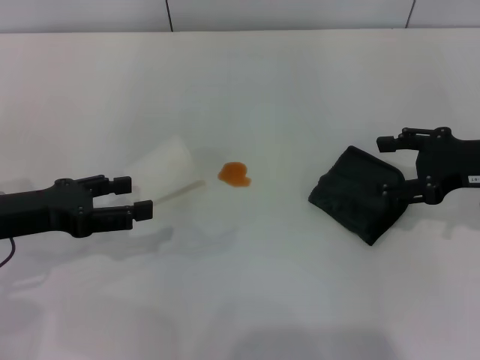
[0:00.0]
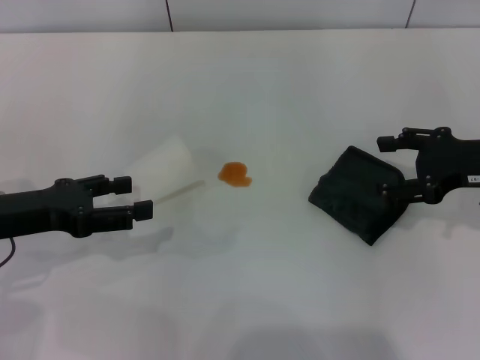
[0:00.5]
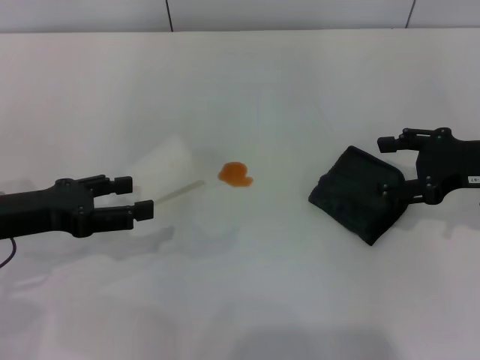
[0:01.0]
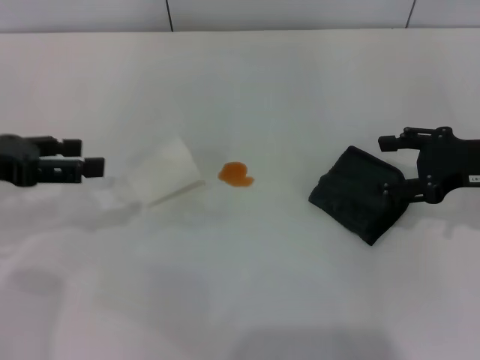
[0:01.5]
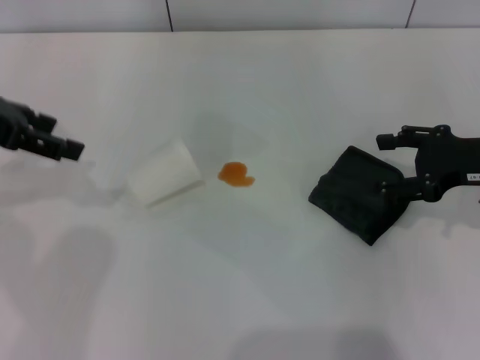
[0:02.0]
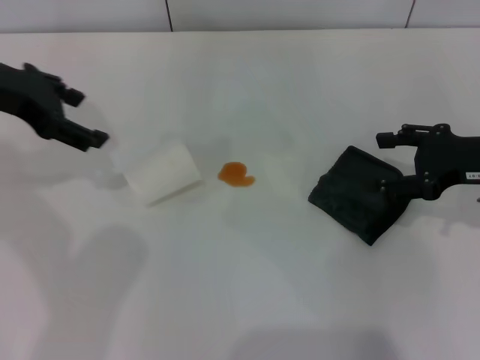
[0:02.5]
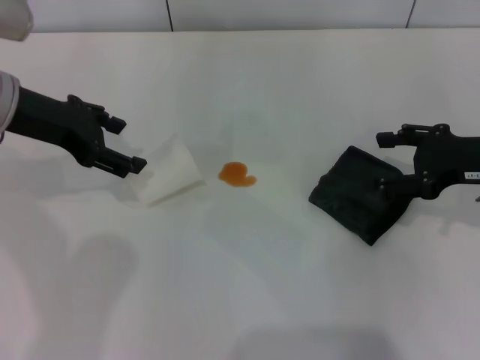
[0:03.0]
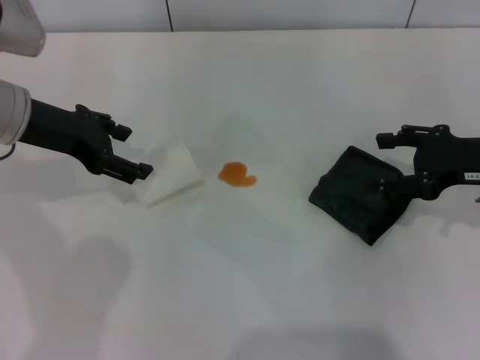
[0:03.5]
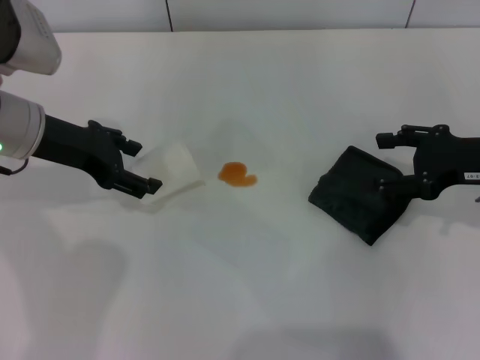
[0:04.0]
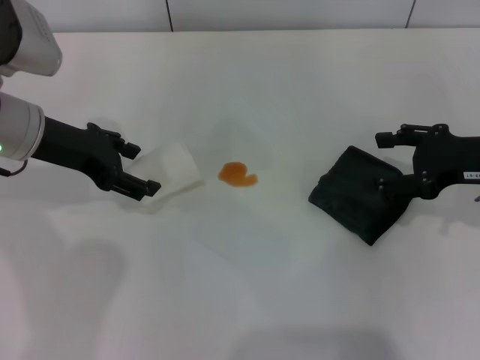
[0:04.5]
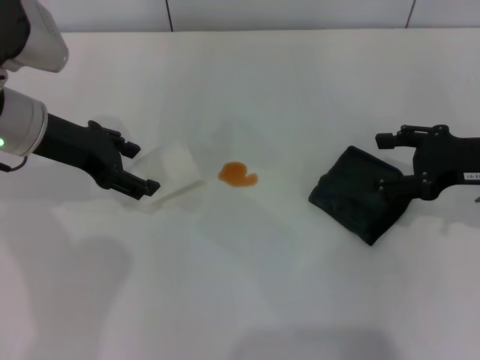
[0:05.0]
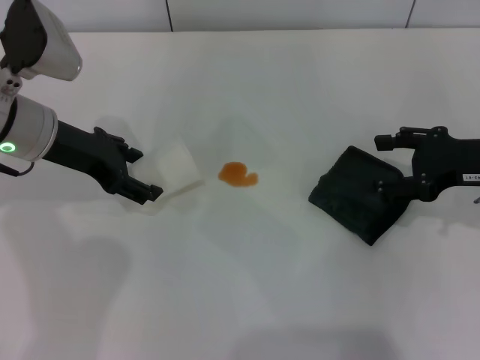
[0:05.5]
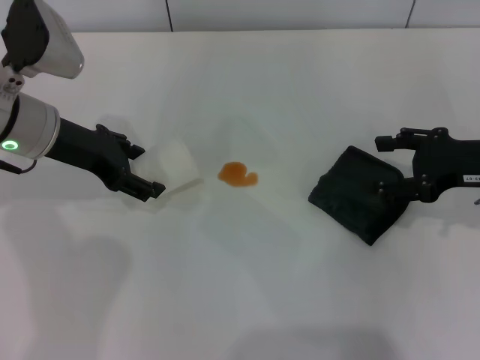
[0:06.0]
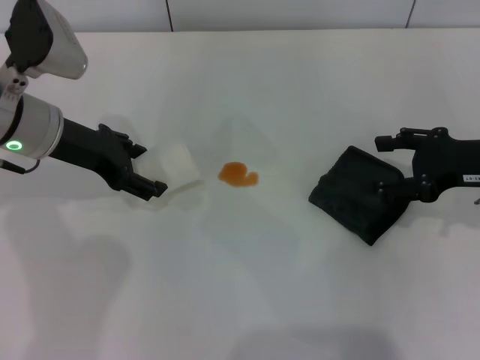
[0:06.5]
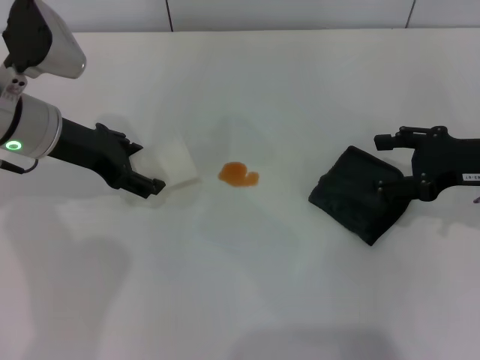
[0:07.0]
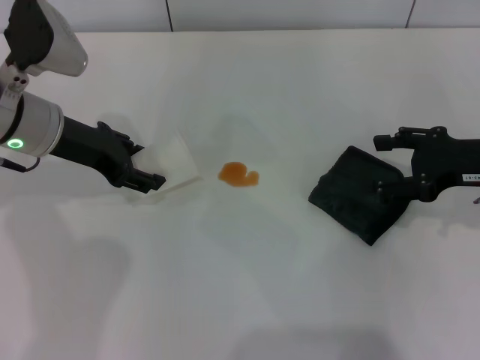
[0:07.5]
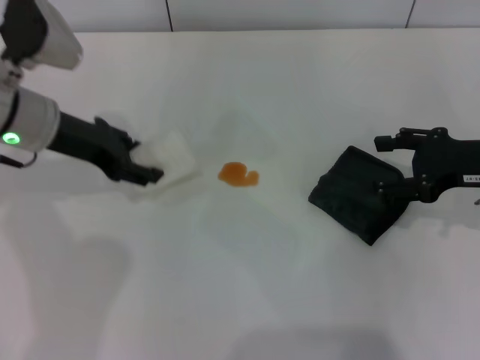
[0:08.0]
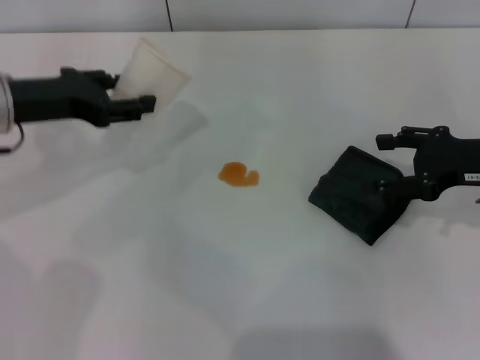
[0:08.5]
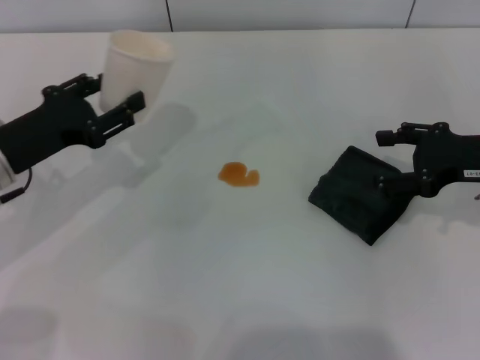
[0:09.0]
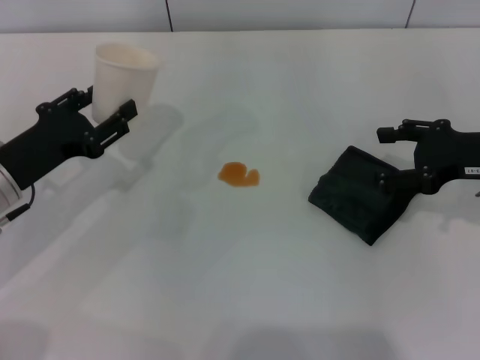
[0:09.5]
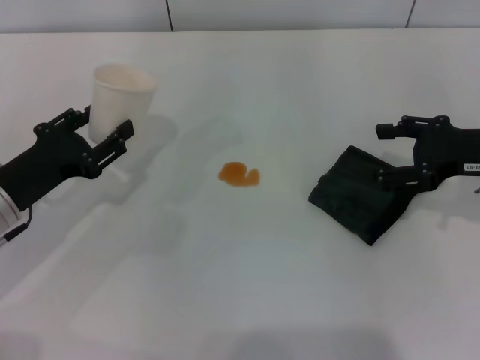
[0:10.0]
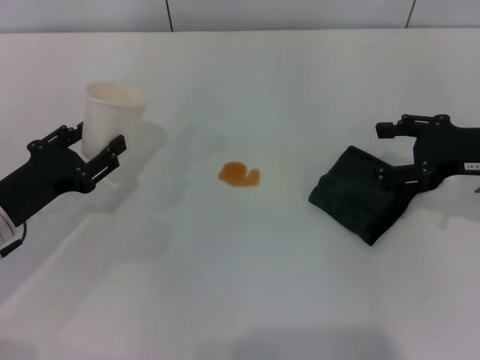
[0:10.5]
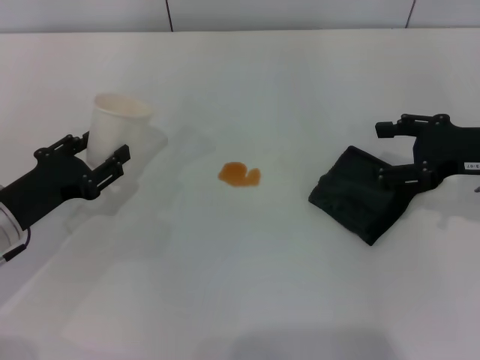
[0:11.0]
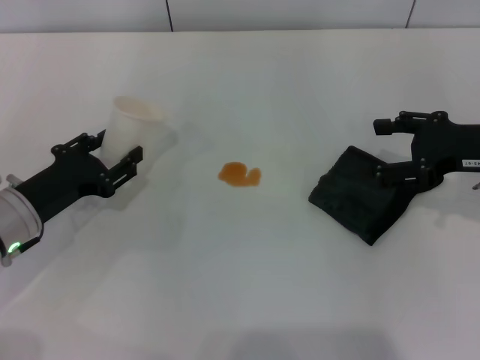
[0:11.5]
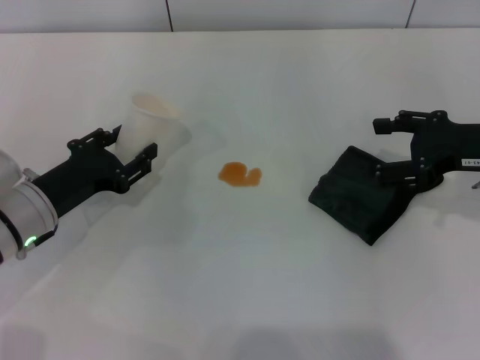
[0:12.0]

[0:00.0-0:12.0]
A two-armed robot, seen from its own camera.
Step, 0:00.0 to 0:07.5: Grasp the paper cup with the left gripper.
0:00.0 to 0:02.0: The left gripper moves upward and forward, roughly 15 cm.
0:02.0 to 0:04.0: The left gripper is displaced downward and to the right by about 10 cm.
0:04.0 to 0:06.0: The grippers stay close to where they were, moving slightly.
0:06.0 to 0:08.0: The left gripper closes.
0:08.0 to 0:10.0: The left gripper moves backward and downward, about 15 cm.
0:10.0 to 0:12.0: The grippers move only a little.

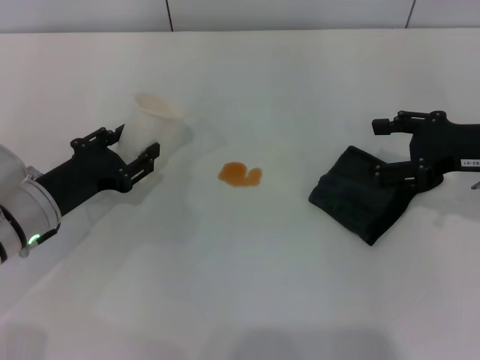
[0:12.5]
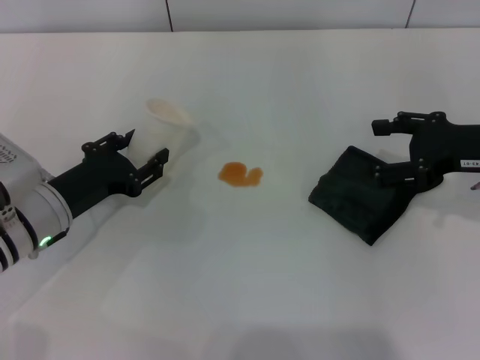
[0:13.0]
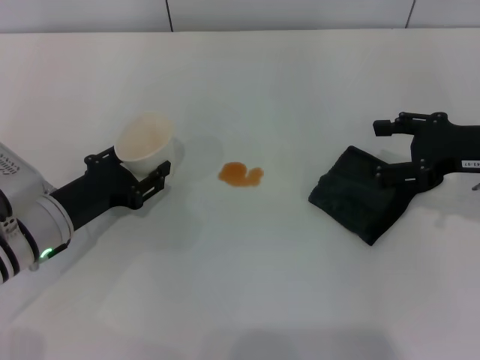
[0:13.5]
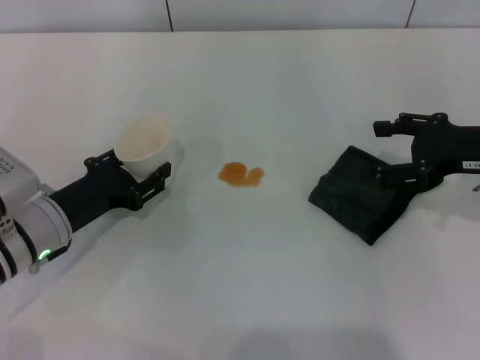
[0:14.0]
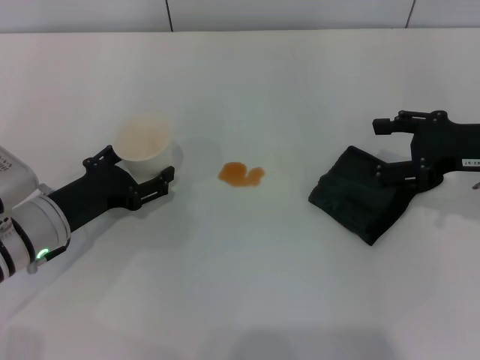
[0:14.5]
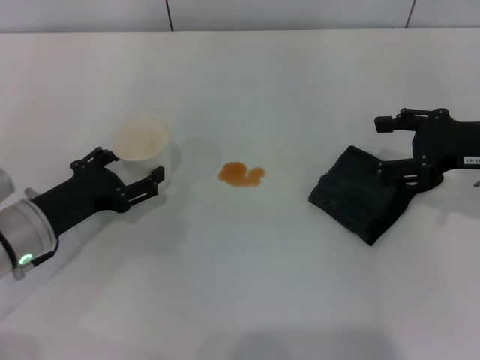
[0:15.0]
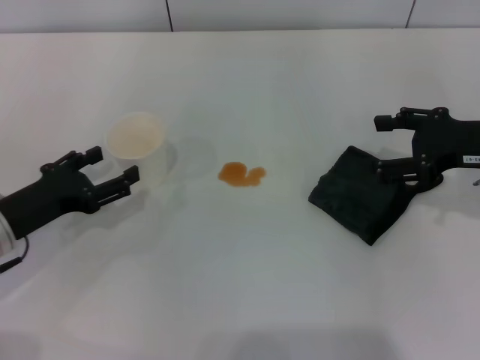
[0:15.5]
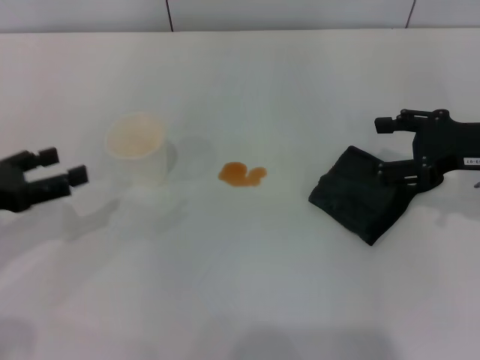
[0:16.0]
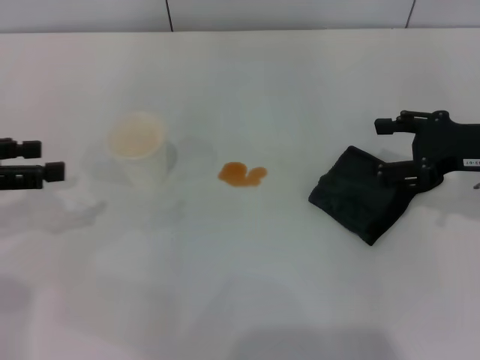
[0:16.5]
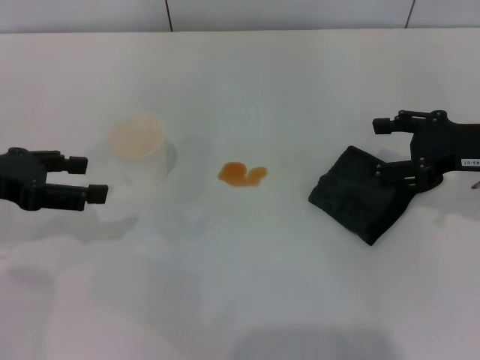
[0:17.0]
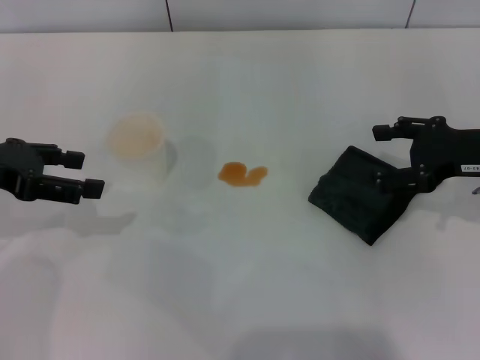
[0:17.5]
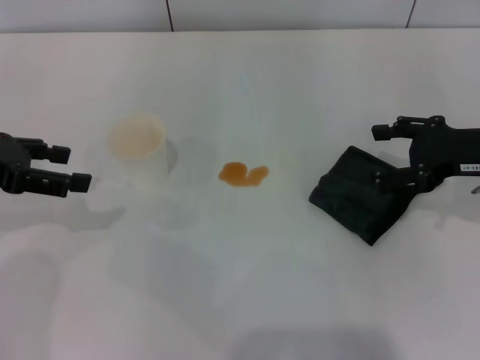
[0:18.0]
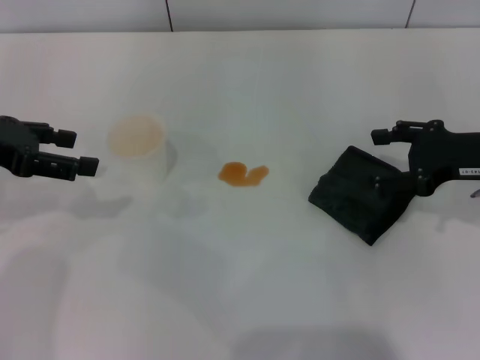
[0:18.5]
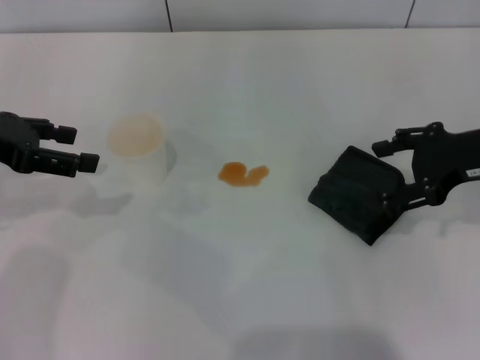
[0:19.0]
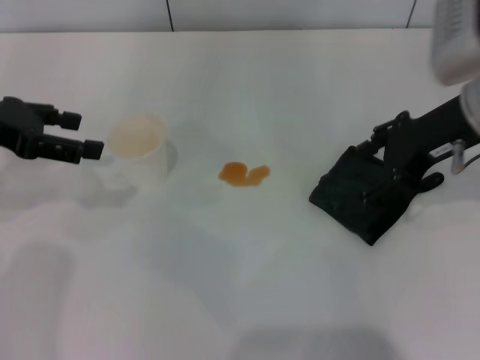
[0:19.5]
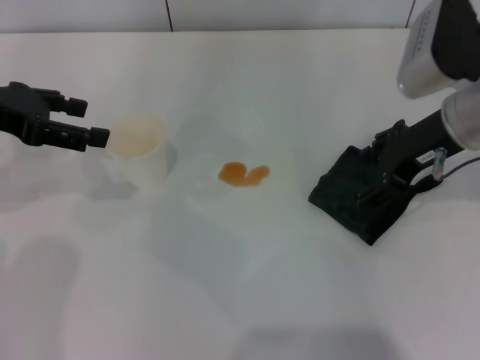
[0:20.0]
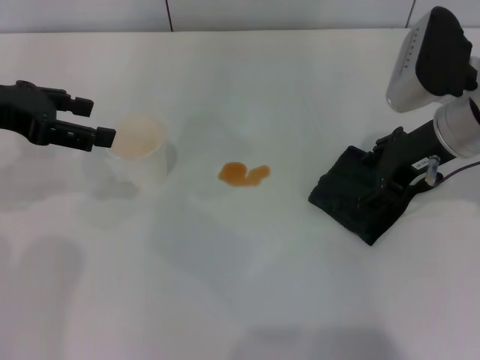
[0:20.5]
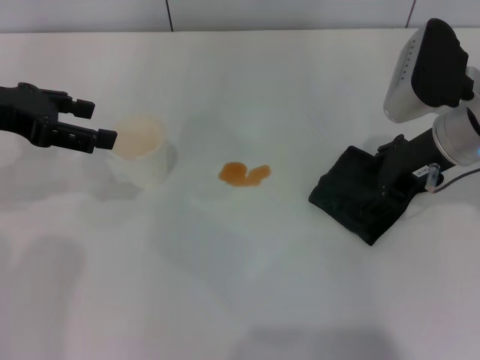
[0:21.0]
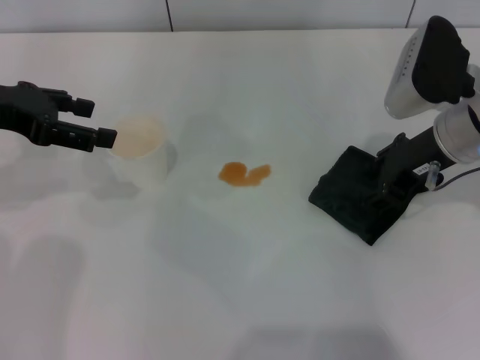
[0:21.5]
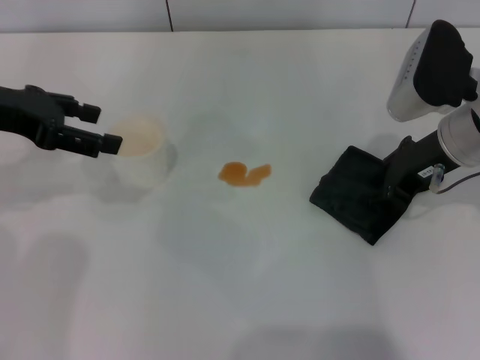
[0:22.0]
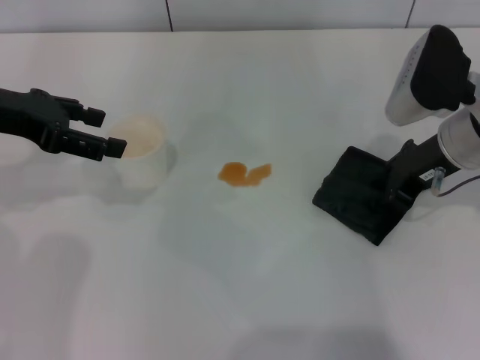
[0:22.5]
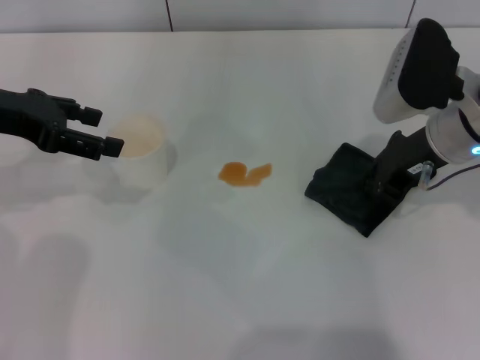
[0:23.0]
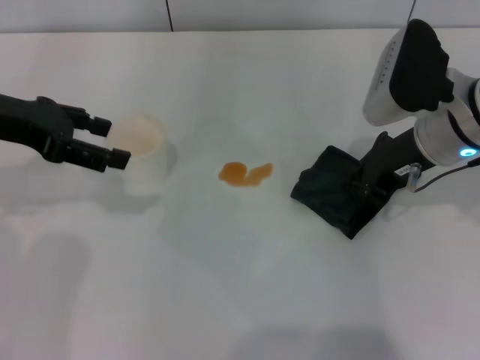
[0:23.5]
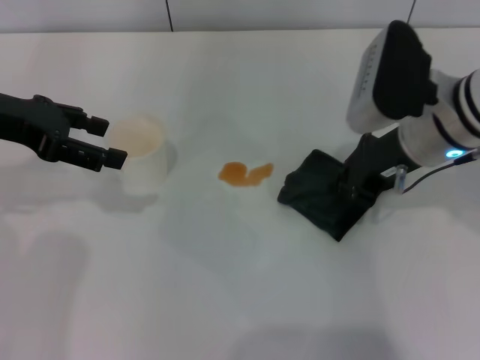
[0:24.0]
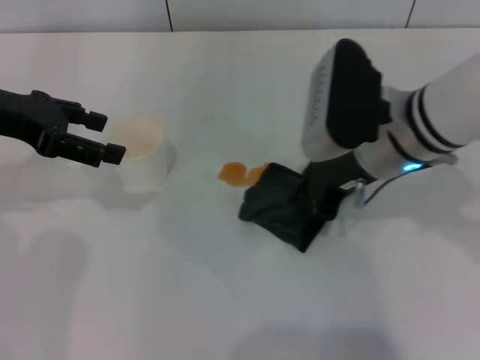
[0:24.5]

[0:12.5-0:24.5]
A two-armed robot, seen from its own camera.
Step, 0:12.5 to 0:15.5: Stand the paper cup upright with the left gripper.
Step, 0:16.0 to 0:23.0: Grasp the rag with the right gripper.
0:12.5 to 0:14.5: The left gripper opens.
0:14.5 to 0:16.5: The left gripper moves upward and to the left, approximately 20 cm, and opens up.
0:16.5 to 0:18.5: The left gripper ends up about 5 cm from where it was.
0:18.5 to 0:20.5: The right gripper travels to the left by some 10 cm.
0:20.5 to 0:22.5: The right gripper closes.
0:22.5 to 0:24.5: The right gripper is displaced to the left by approximately 10 cm, and closes its fingers.

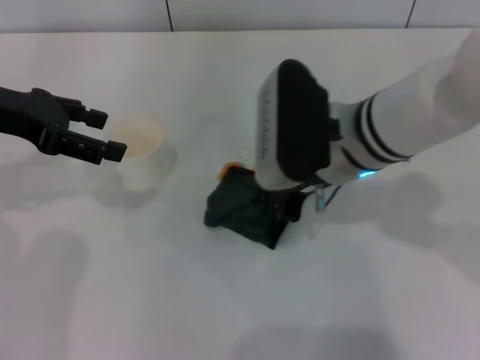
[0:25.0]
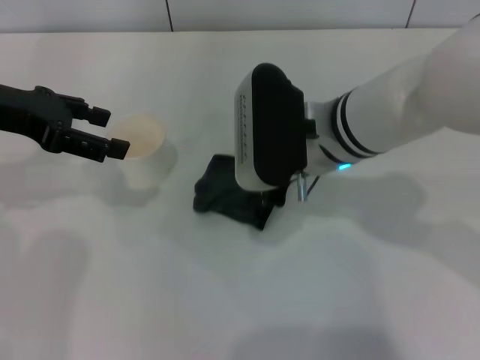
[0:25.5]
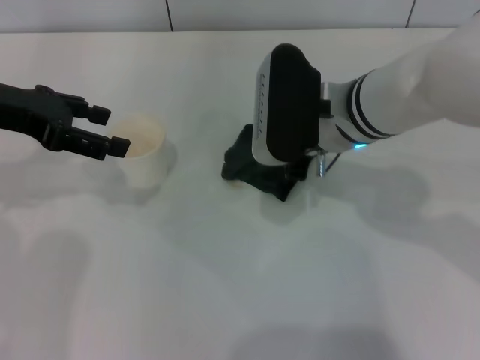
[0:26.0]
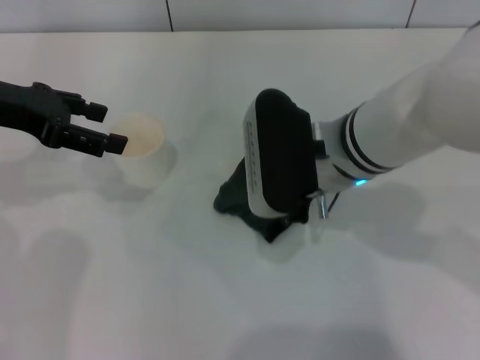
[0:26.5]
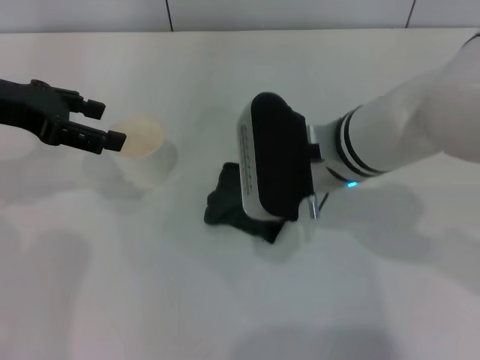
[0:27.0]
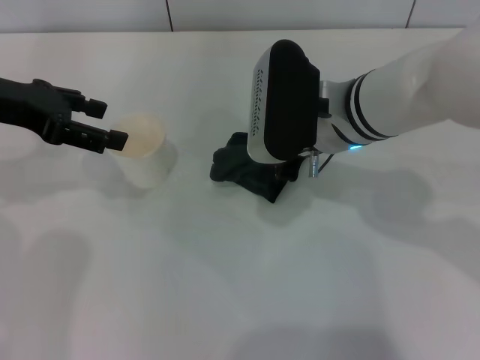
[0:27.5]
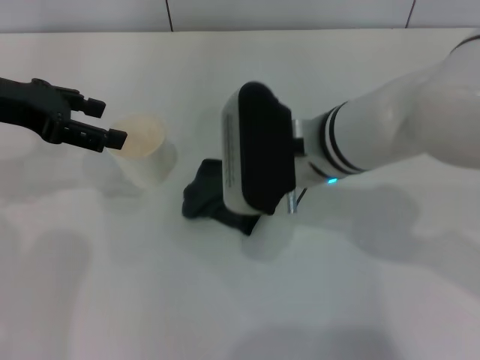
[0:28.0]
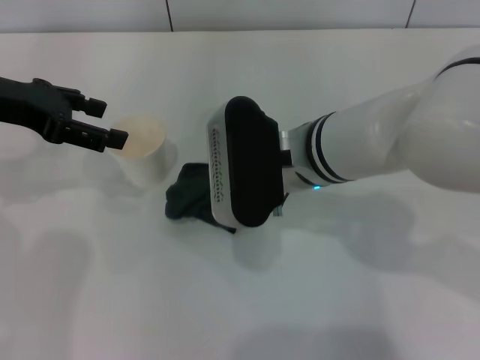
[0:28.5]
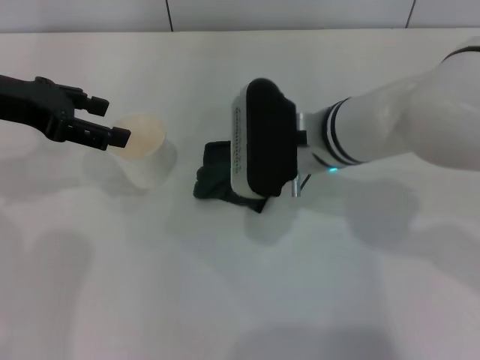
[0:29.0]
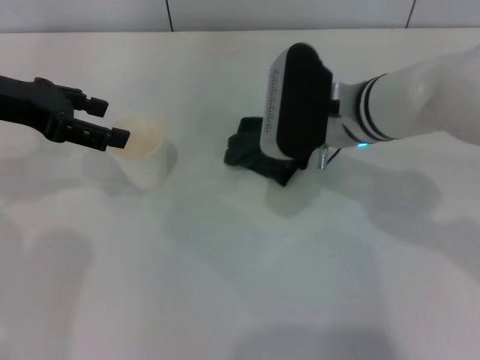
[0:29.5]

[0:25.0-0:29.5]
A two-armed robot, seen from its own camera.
0:25.0 to 0:27.0: The grippers move only a little.
0:27.0 to 0:29.5: The right gripper changes place by approximately 5 cm.
